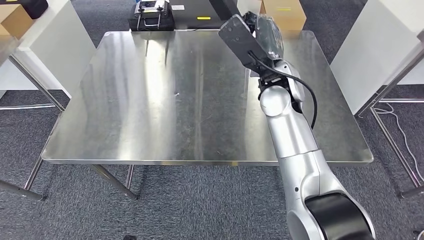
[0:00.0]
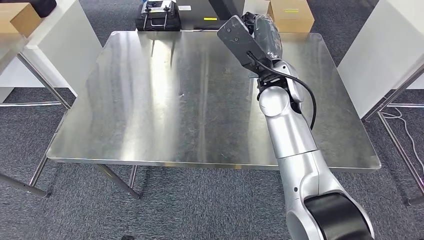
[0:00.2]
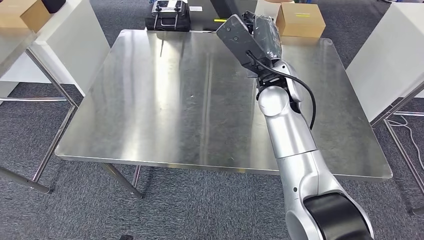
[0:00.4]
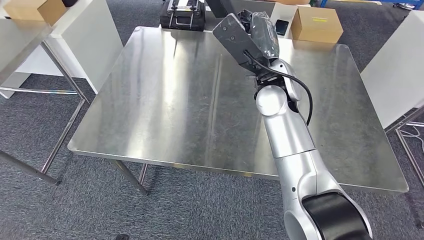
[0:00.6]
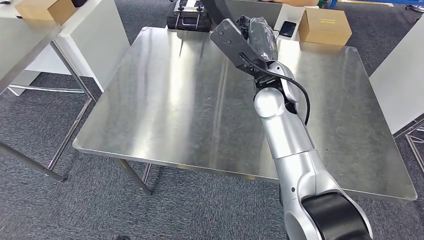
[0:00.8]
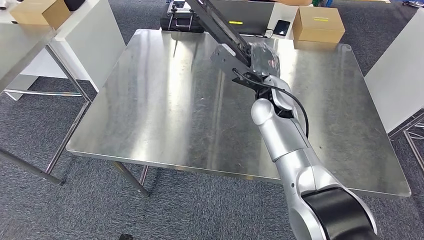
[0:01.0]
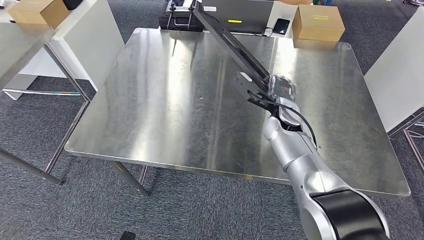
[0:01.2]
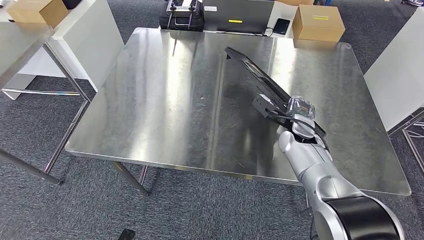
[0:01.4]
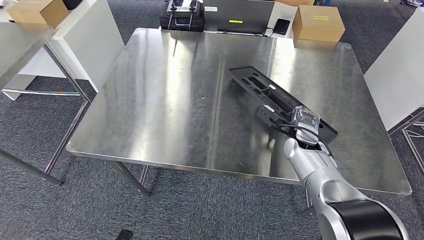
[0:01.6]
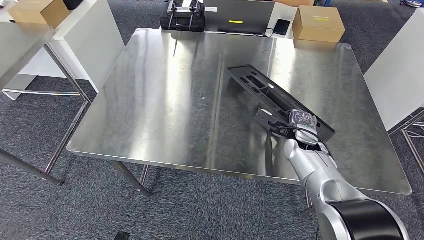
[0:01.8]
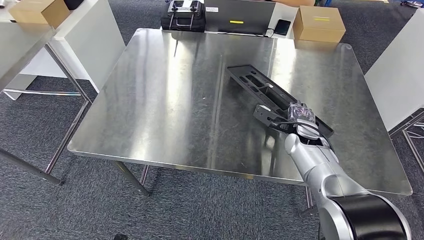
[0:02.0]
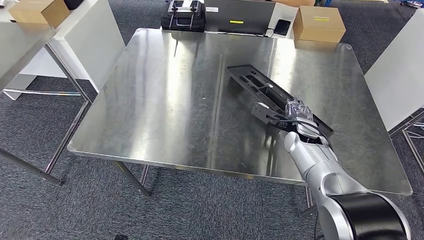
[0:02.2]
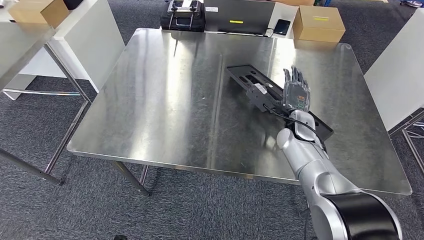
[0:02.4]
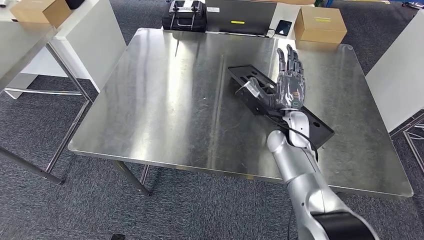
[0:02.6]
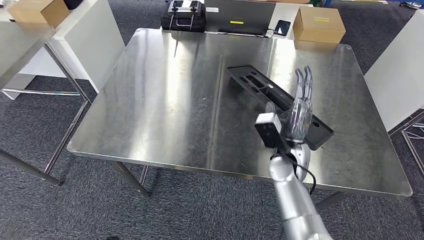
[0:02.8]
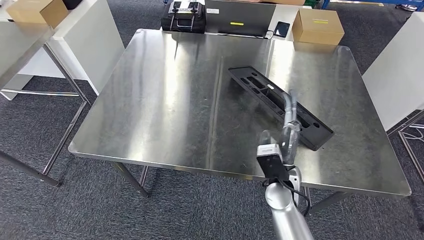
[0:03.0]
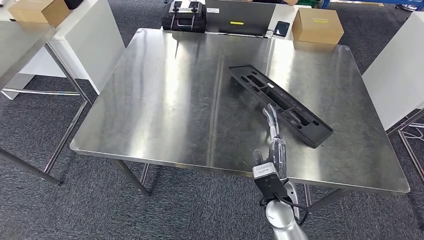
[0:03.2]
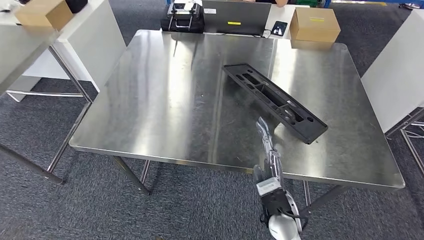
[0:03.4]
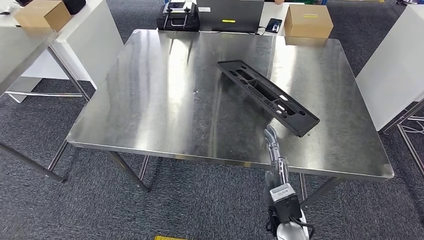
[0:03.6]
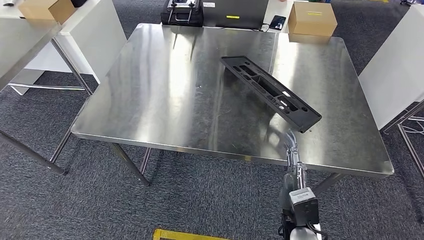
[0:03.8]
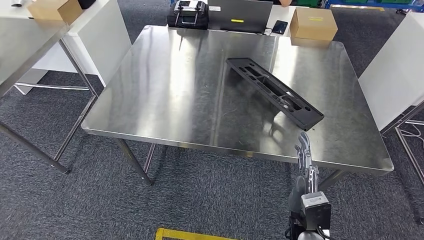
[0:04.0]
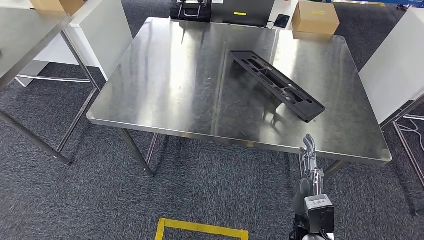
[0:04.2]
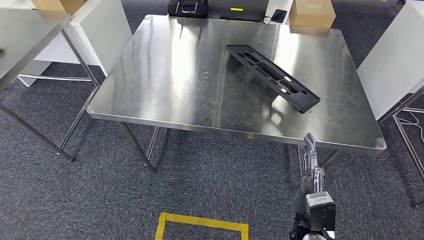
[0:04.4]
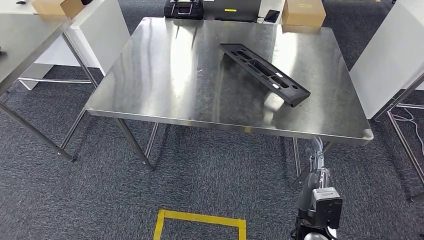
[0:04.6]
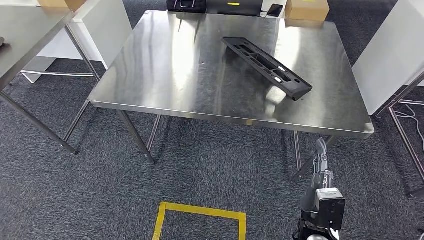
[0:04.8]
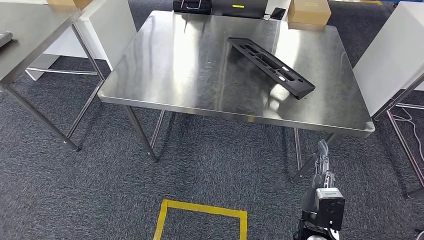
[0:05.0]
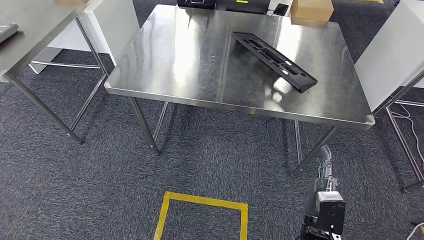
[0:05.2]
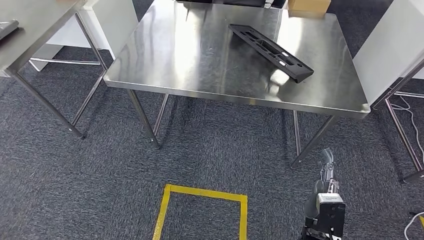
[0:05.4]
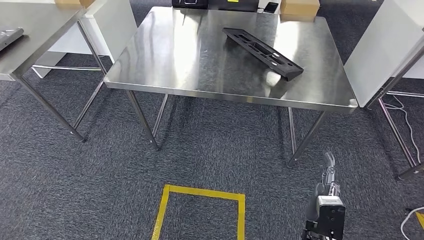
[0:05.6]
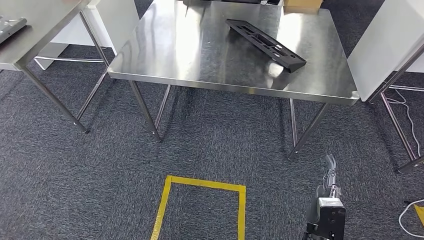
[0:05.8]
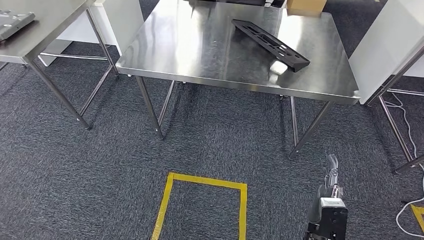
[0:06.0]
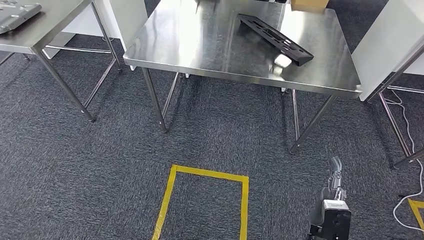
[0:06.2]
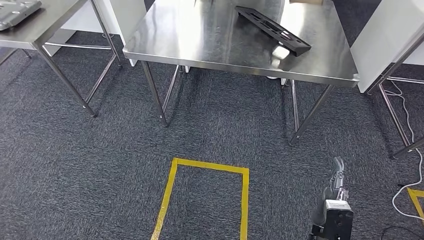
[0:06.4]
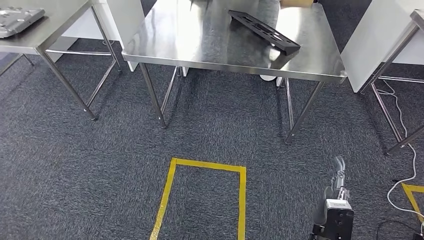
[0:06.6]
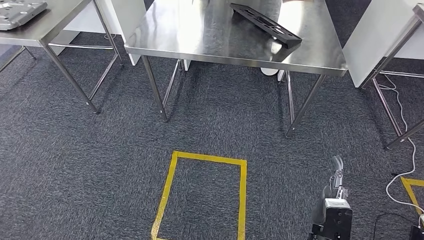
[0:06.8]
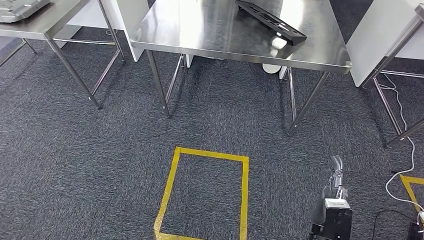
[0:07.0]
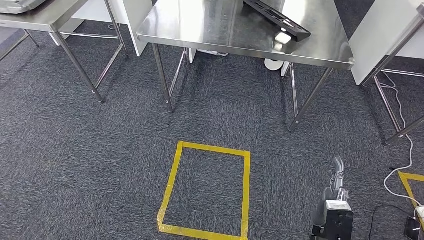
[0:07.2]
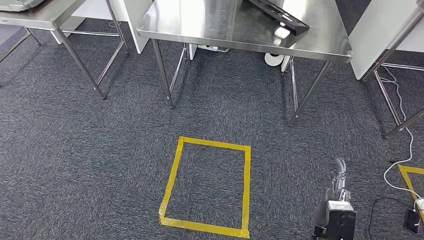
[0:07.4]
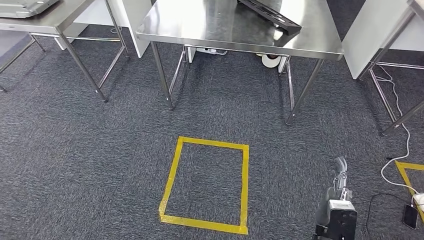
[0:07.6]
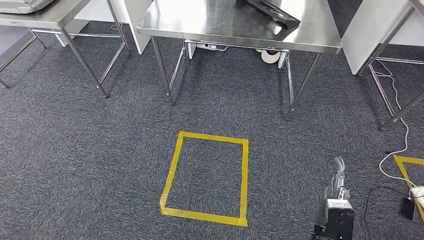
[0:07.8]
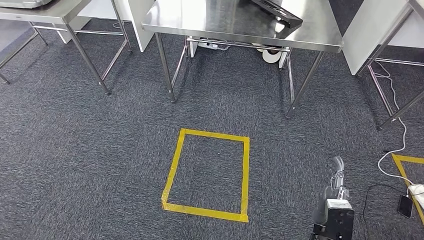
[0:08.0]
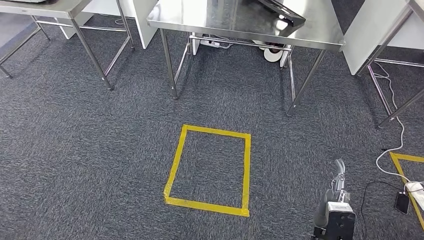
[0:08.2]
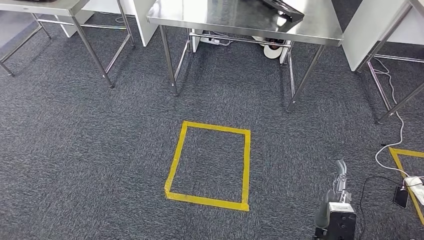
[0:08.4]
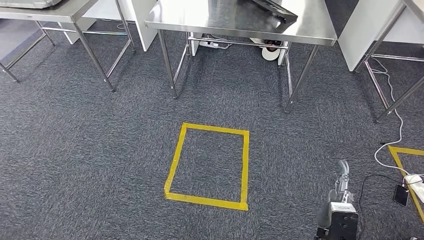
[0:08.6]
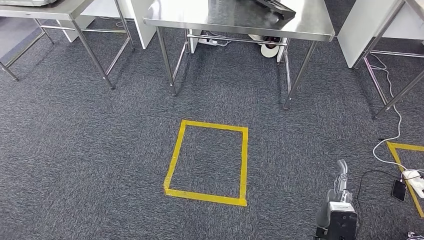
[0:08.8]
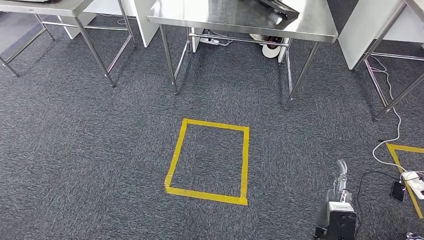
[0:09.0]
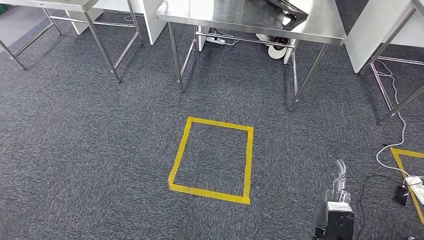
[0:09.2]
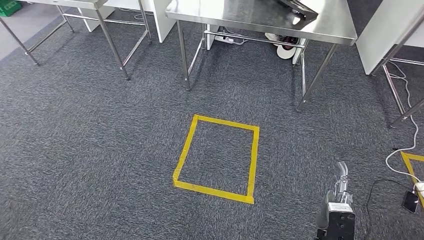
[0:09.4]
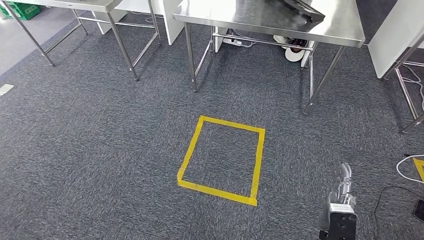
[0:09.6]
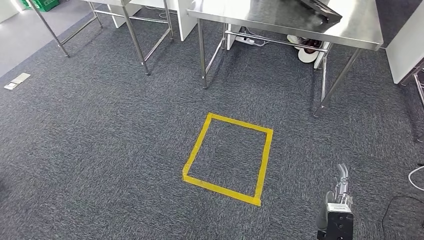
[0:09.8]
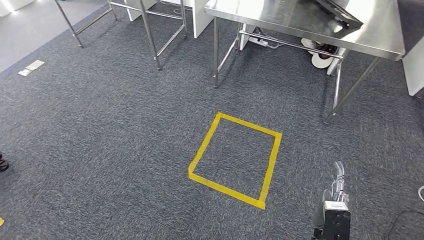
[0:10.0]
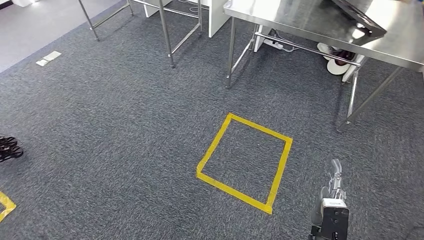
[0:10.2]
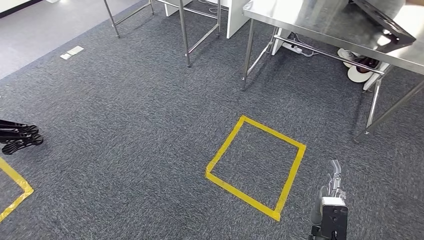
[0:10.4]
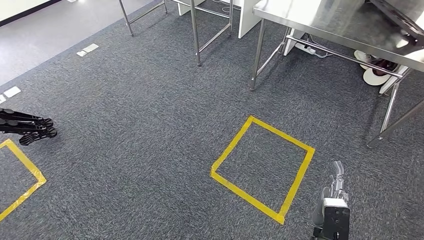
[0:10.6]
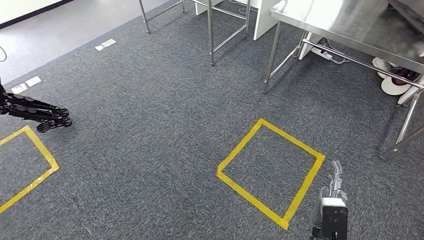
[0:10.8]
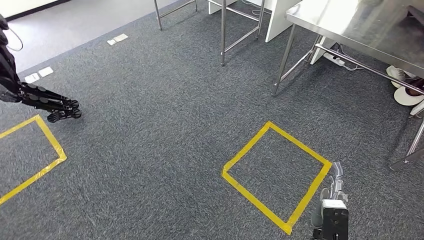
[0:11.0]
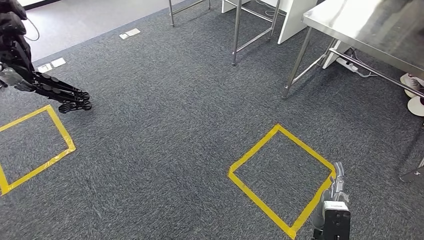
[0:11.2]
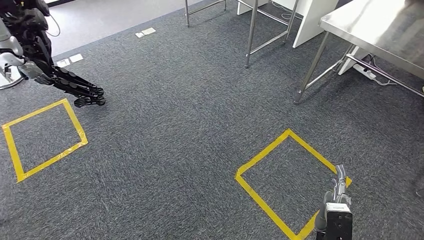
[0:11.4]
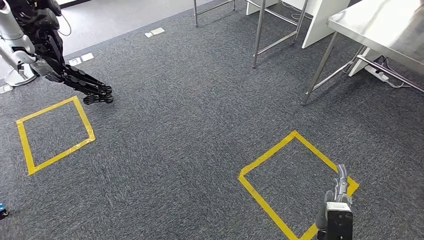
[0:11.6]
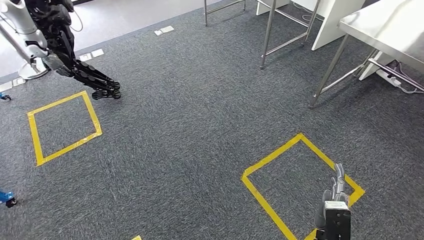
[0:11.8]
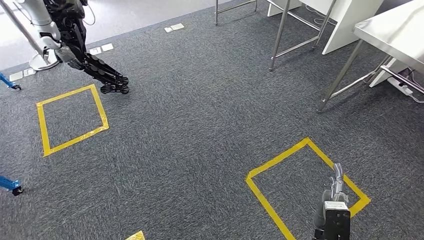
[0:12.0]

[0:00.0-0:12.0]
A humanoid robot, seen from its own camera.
Step, 0:00.0 to 0:06.6: Insert the large material into the corresponding slot on the workbench.
0:01.6 to 0:03.0: The right hand heads backward and to the left, covering some 20 cm.

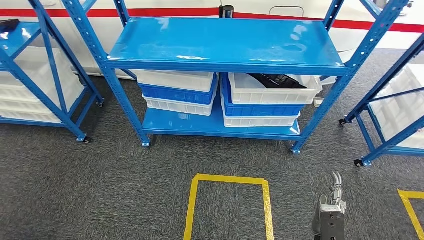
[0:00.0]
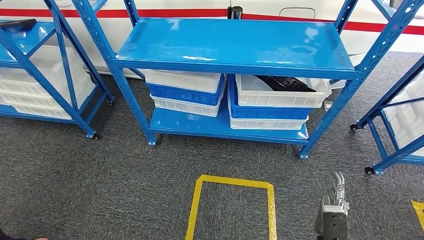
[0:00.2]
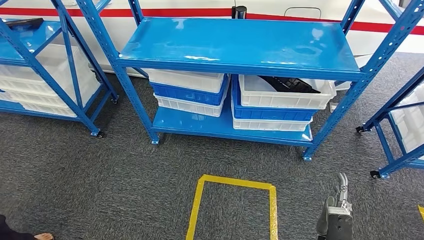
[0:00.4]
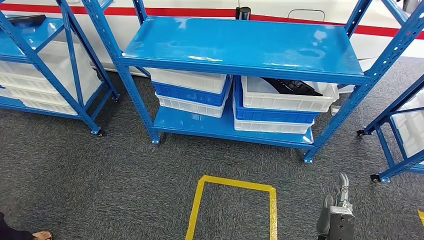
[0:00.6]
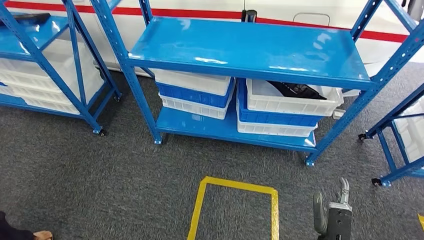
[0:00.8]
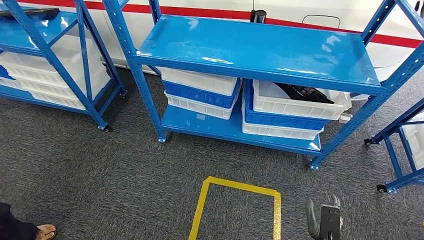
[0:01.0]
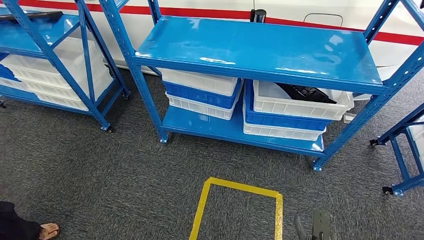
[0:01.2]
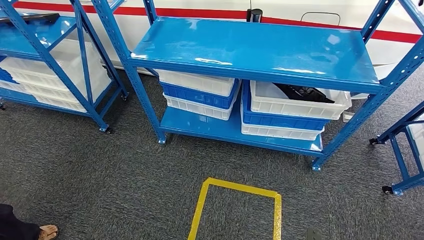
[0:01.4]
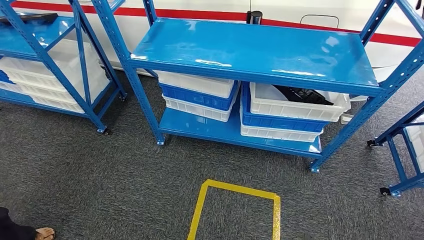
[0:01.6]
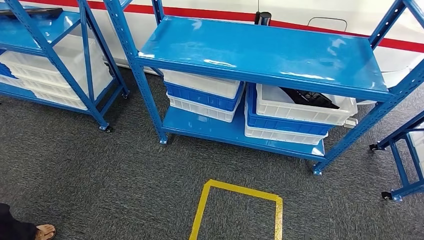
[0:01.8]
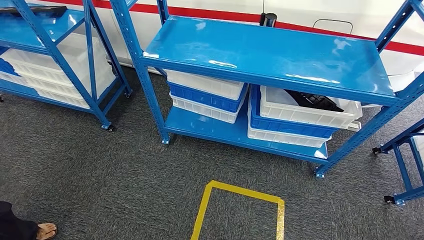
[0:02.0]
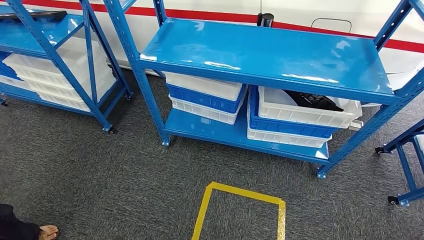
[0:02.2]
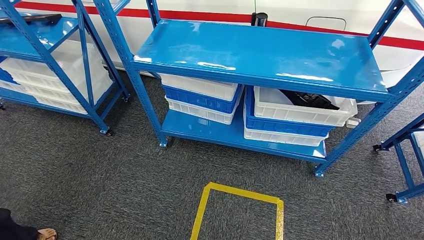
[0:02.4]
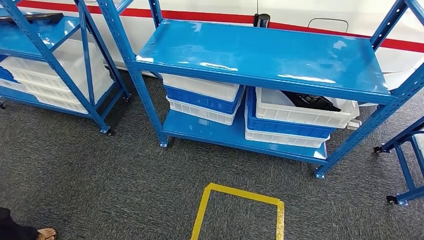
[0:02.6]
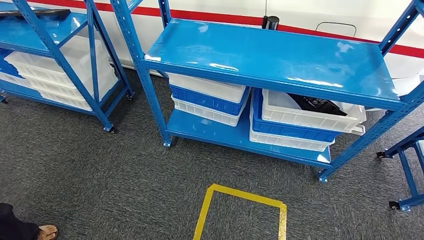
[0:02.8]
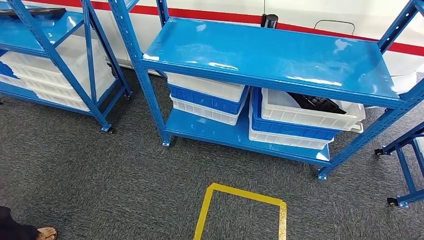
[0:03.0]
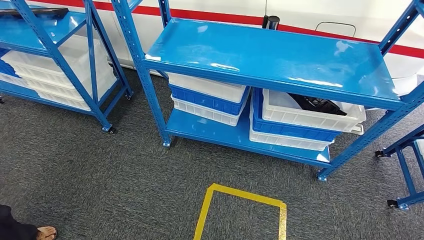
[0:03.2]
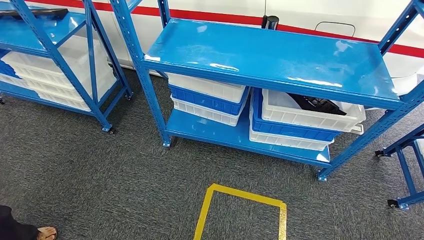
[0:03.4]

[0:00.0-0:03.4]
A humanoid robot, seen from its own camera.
Step, 0:00.0 to 0:03.4: Move to the initial position of the shelf.

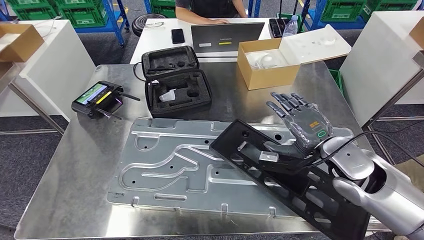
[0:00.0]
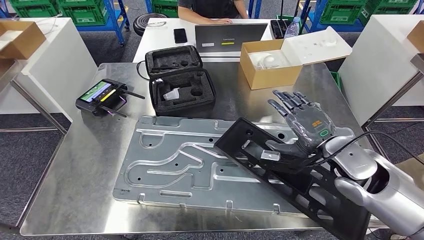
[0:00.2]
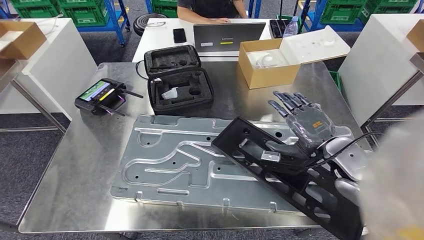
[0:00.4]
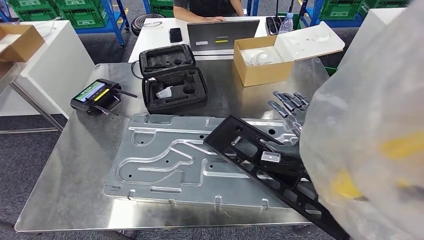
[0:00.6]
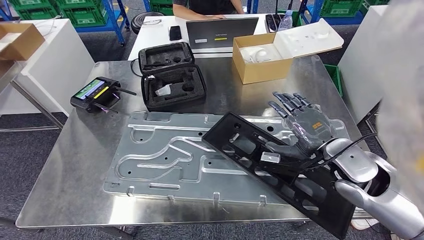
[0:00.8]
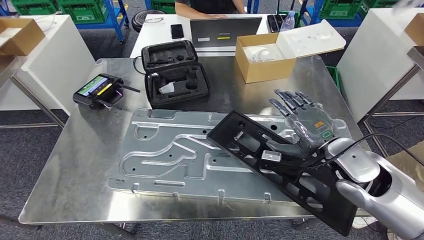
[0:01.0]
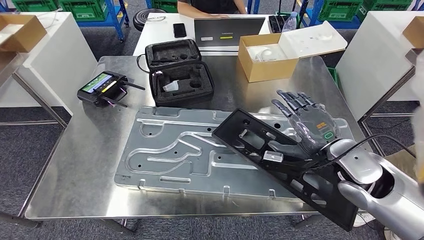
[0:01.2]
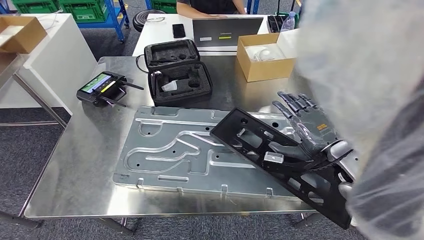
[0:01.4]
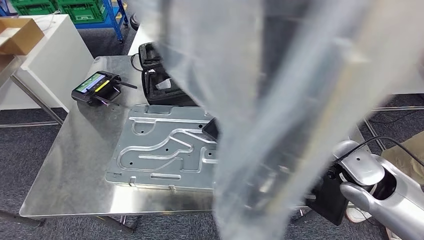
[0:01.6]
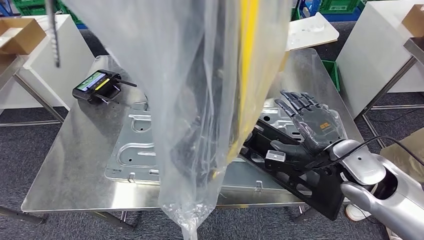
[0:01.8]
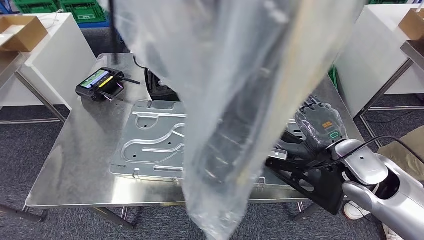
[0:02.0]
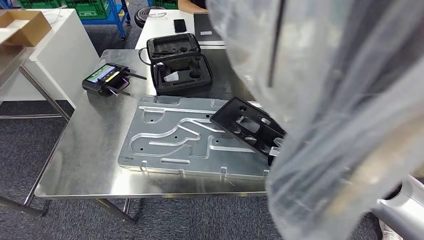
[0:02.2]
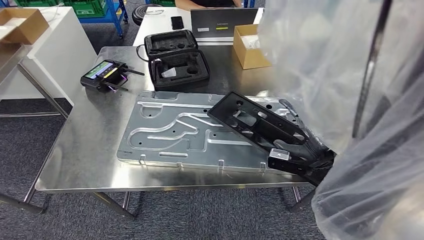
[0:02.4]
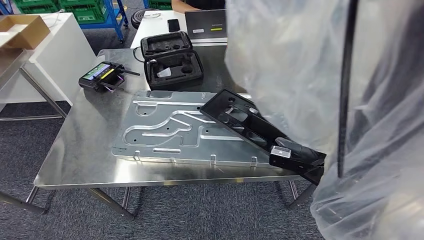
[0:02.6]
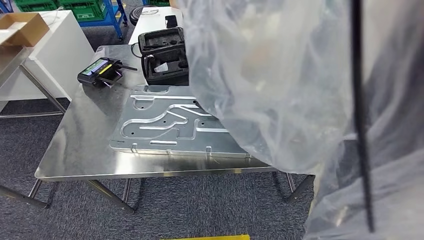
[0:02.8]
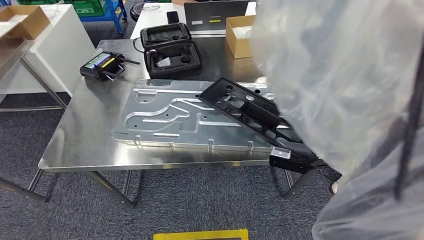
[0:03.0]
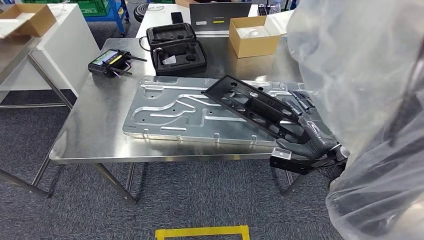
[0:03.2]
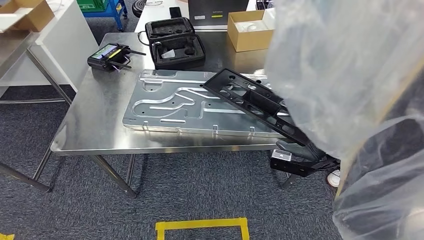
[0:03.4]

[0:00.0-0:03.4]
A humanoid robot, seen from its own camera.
Step, 0:00.0 to 0:03.2: Insert the large material into the corresponding slot on the workbench.
